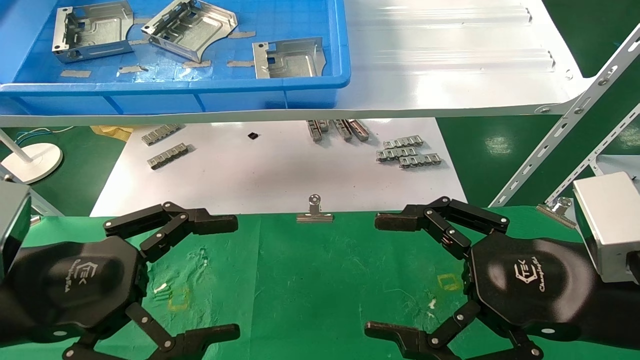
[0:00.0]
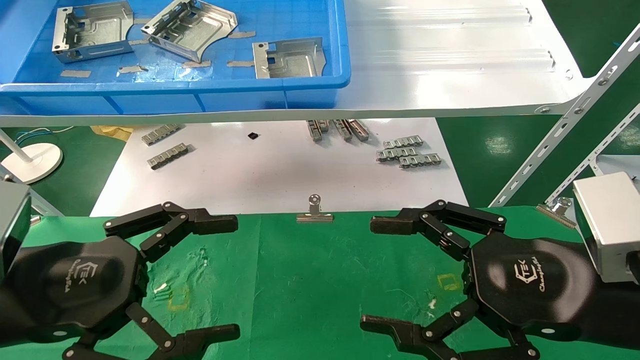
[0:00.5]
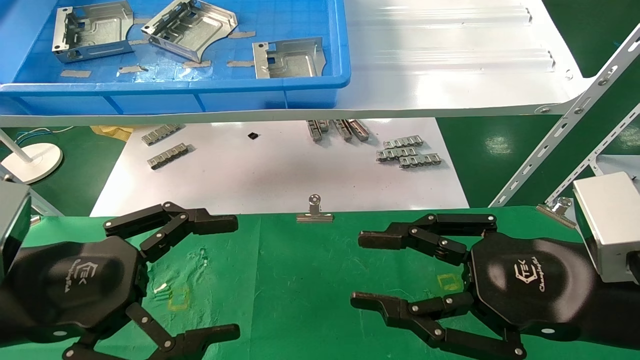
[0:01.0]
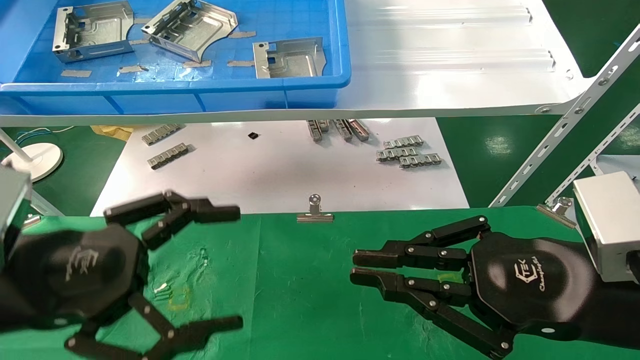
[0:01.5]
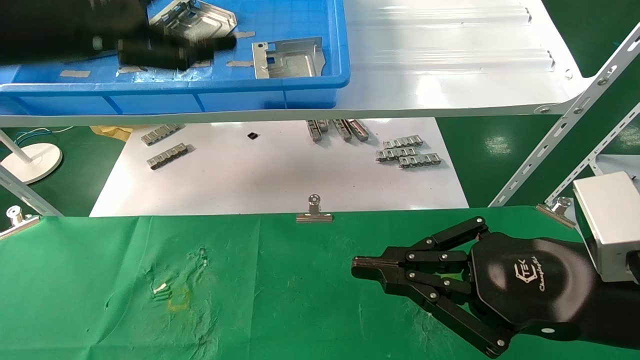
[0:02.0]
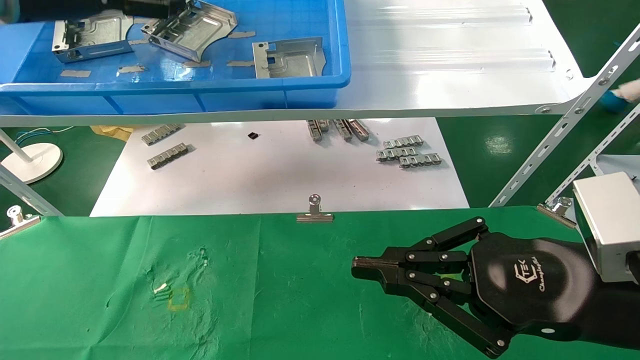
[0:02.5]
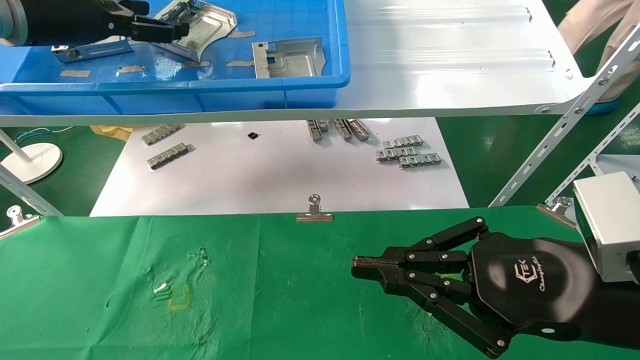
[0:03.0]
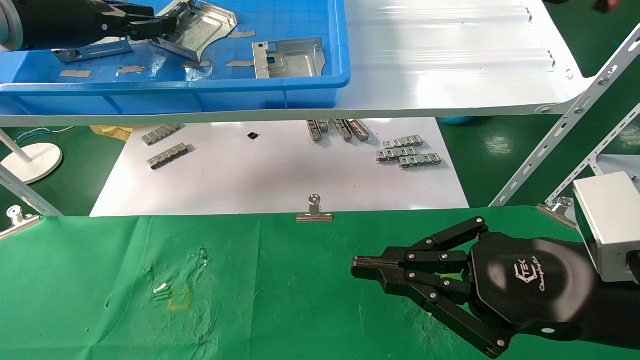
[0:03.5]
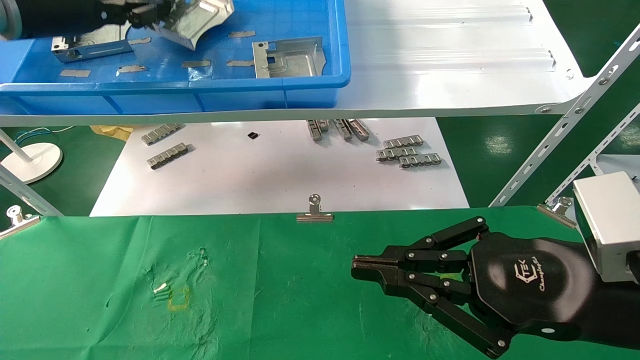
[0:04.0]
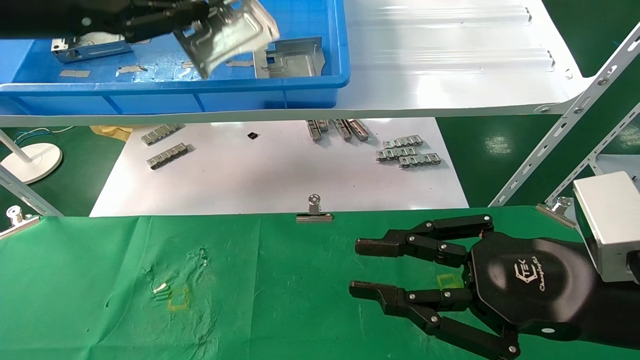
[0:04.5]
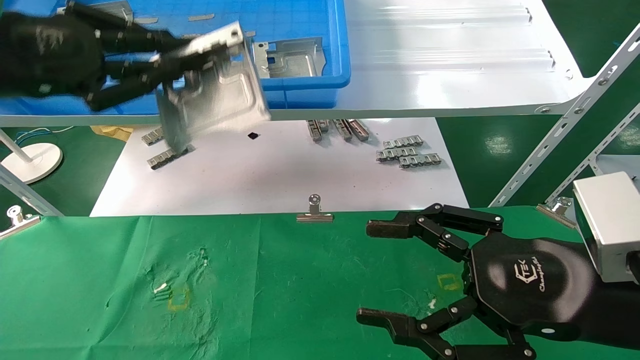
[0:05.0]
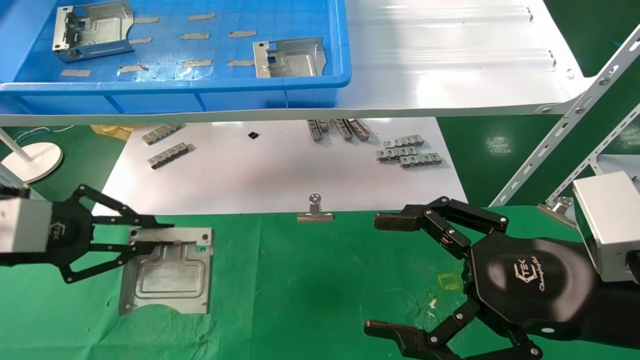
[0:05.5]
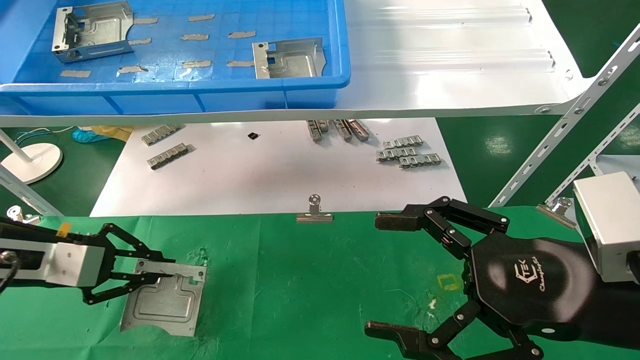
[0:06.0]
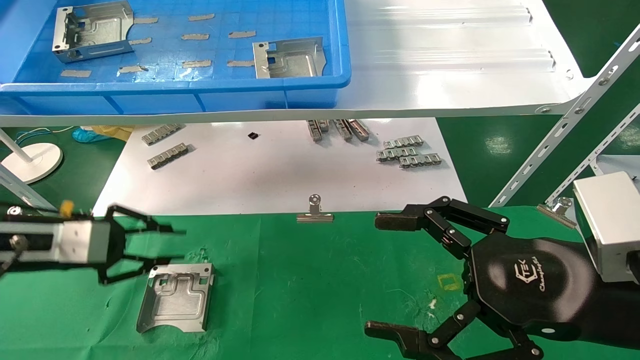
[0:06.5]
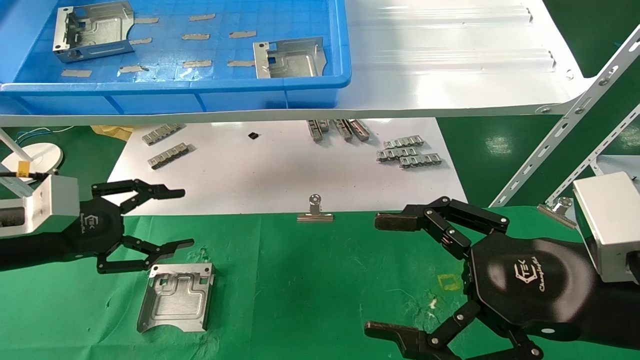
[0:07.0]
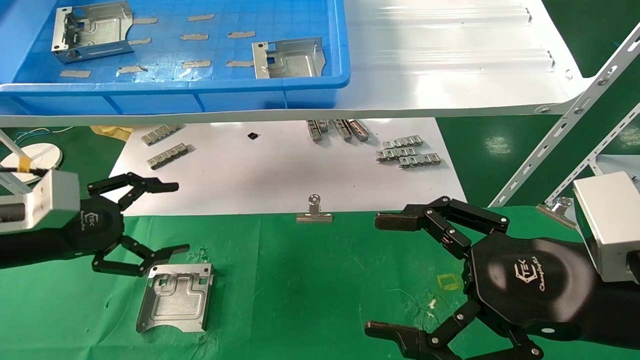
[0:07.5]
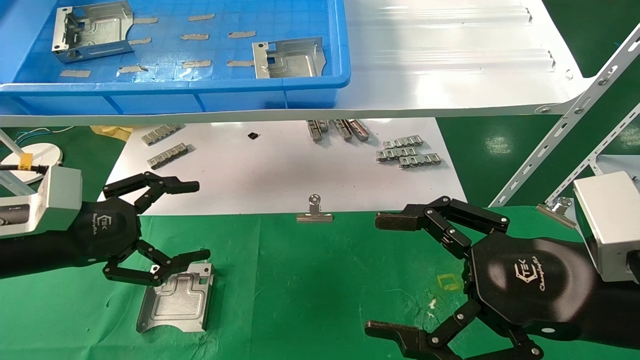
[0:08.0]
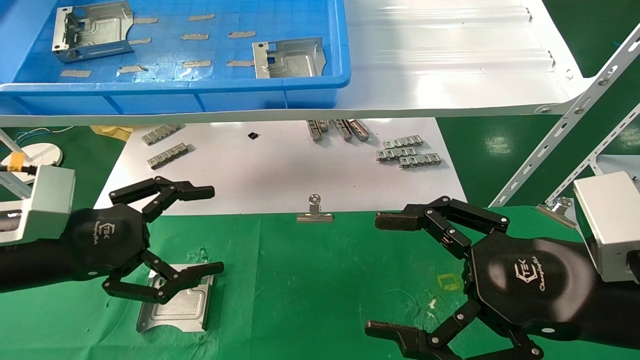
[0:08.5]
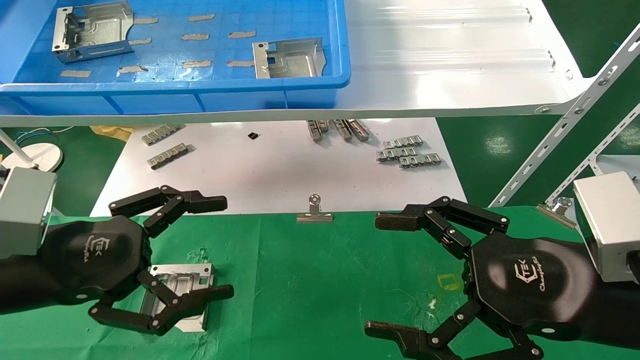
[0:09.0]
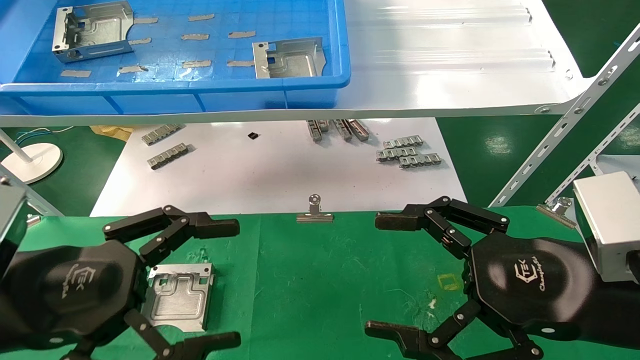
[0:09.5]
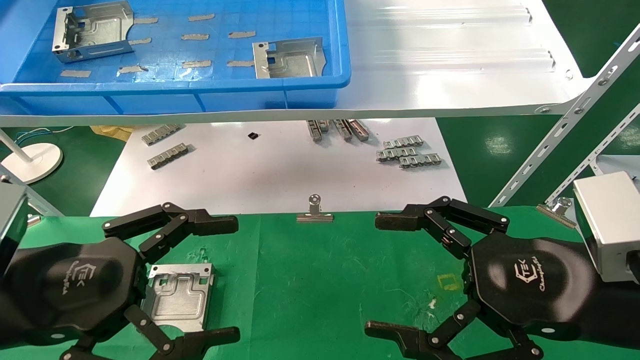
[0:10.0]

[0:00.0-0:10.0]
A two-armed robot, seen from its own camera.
Task of the whole recording: use the mechanical arm to pick up the parts and place them on the table.
Step, 0:01.5 to 0:04.5: Pick up the hard drive bracket from the feeding area.
Step, 0:05.0 to 0:06.0: Place the hard drive bracket into the box.
0:00.0 to 0:02.0: The left gripper is displaced upward and forward by approximately 25 cm, while the right gripper closes its fingers.
0:02.0 to 0:04.0: The left gripper goes approximately 10 cm forward, and closes.
0:04.0 to 0:06.0: The right gripper opens, while the left gripper travels downward by about 25 cm.
0:06.0 to 0:08.0: The left gripper shifts by roughly 5 cm, and opens up.
0:08.0 to 0:10.0: The left gripper travels backward and to the right by roughly 10 cm.
